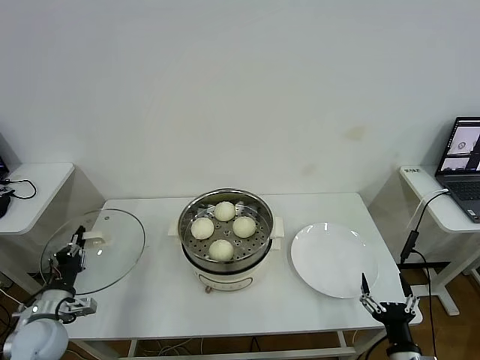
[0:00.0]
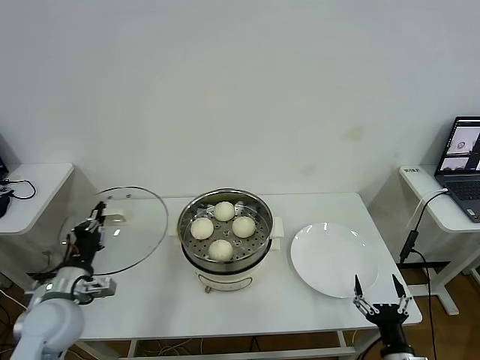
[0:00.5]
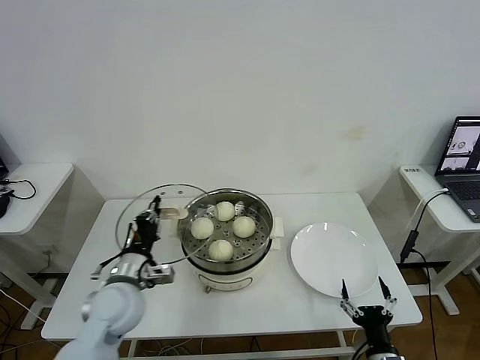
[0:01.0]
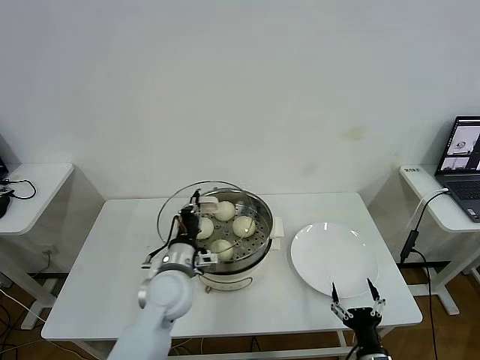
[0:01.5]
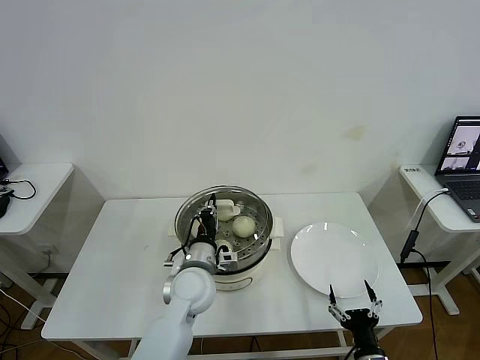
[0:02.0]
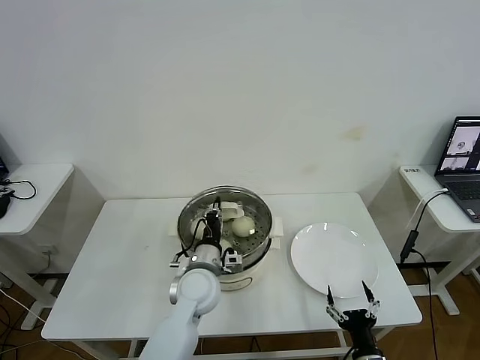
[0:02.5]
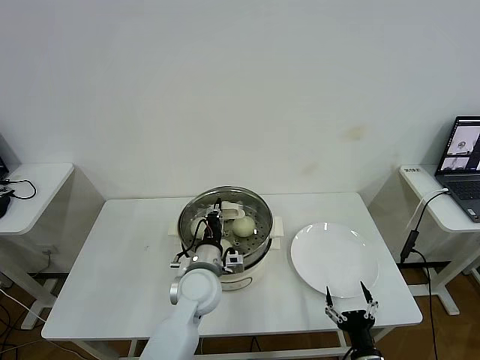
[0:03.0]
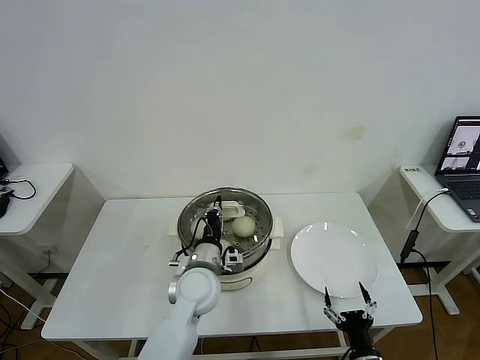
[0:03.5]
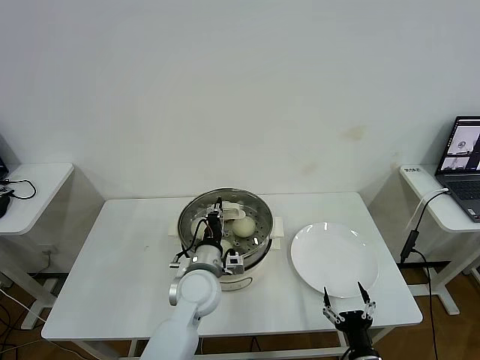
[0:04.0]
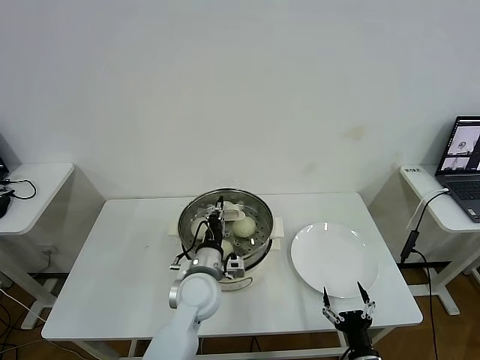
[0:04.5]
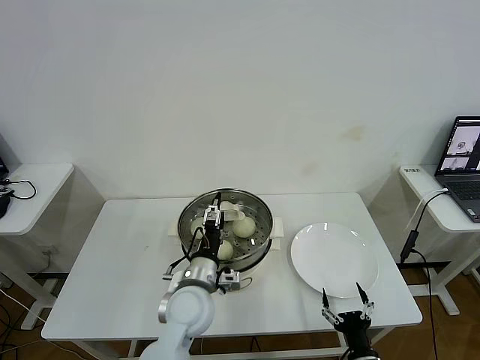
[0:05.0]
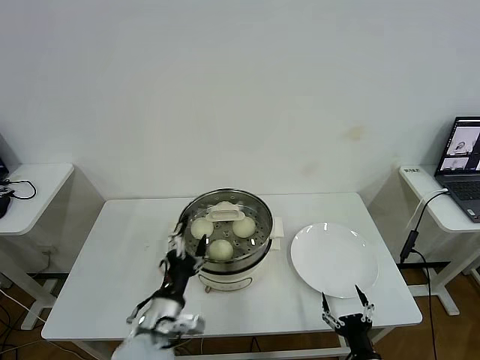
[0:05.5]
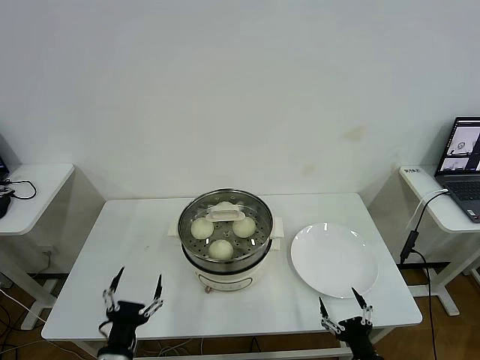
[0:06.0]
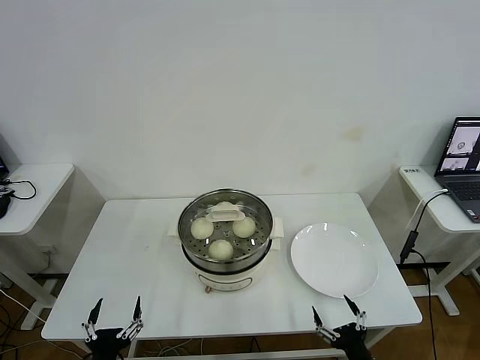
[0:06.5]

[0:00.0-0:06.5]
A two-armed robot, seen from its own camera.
Task of the whole recording: take steamed baozi put them in steamer then cover it.
Step, 0:00.0 to 0:05.0: Place the pot lid on the steamer with left gripper.
0:00.0 to 0:02.0: The left gripper shifts some 30 cm to the right, while the right gripper is displaced to the left by approximately 5 cm.
0:02.0 to 0:04.5: The grippers move only a little.
0:04.5 to 0:06.5: The left gripper moves backward and to the left, roughly 30 cm, and opens its fingers.
